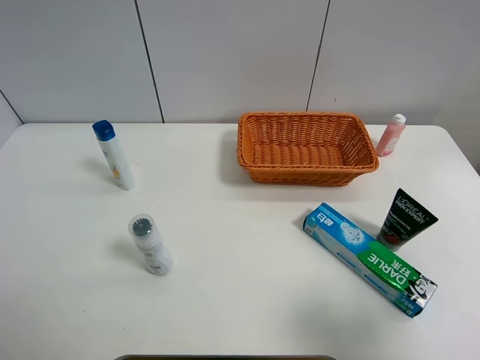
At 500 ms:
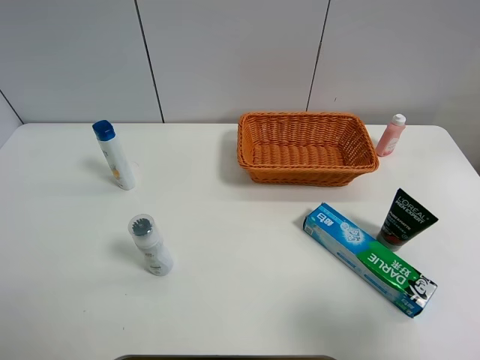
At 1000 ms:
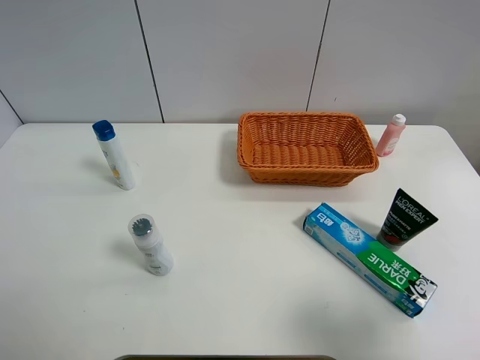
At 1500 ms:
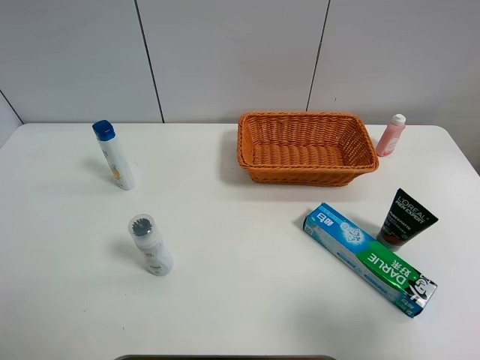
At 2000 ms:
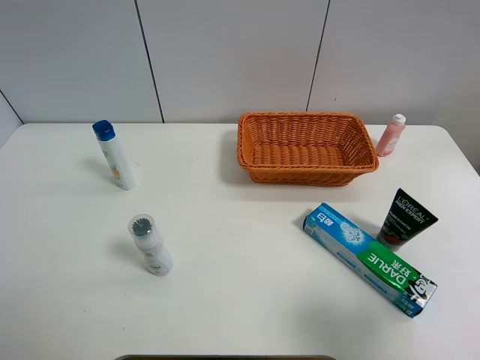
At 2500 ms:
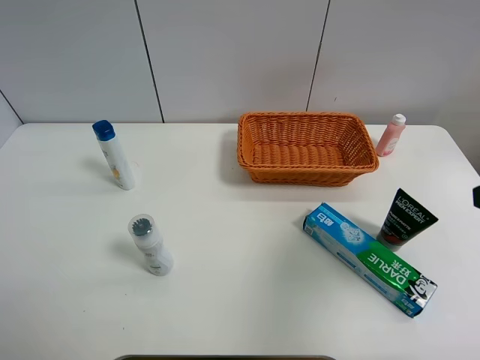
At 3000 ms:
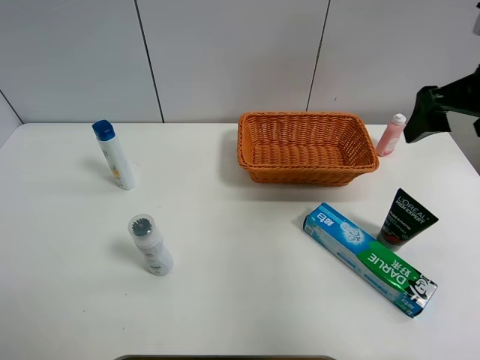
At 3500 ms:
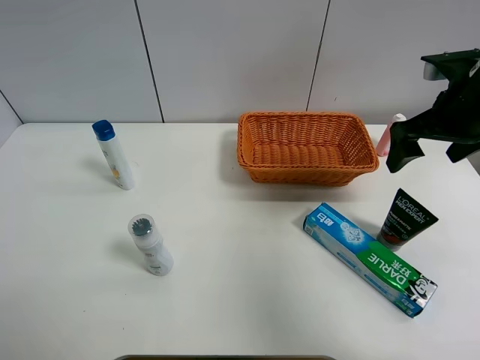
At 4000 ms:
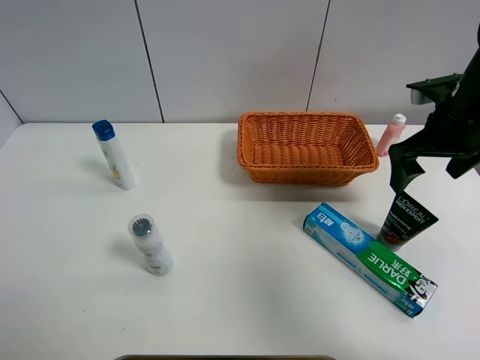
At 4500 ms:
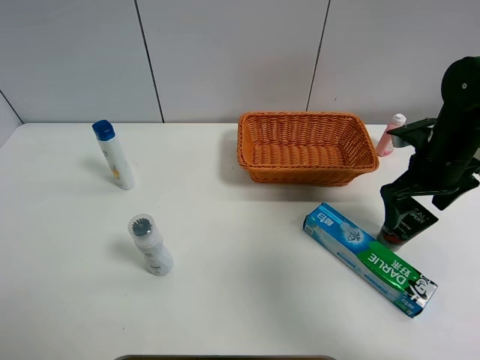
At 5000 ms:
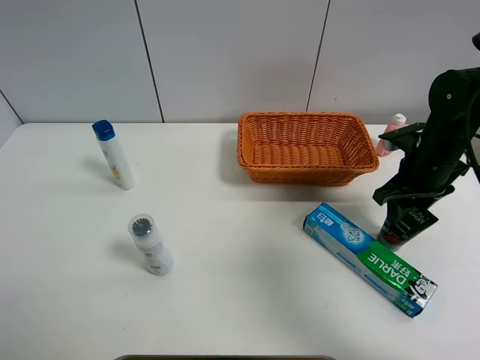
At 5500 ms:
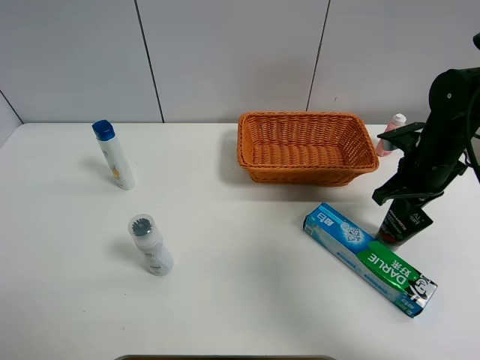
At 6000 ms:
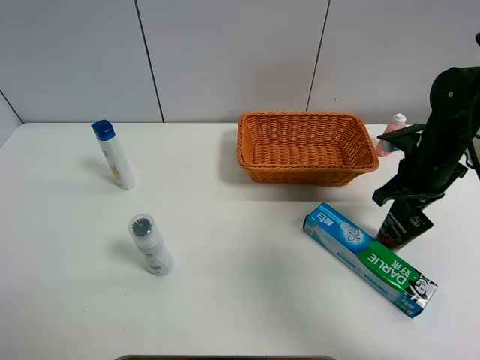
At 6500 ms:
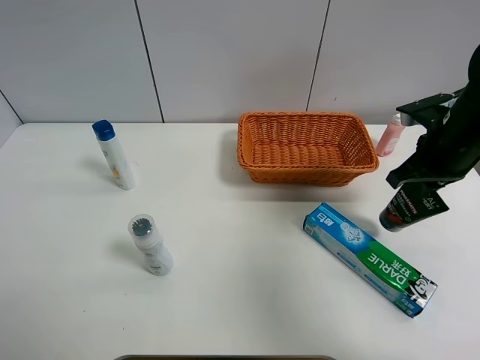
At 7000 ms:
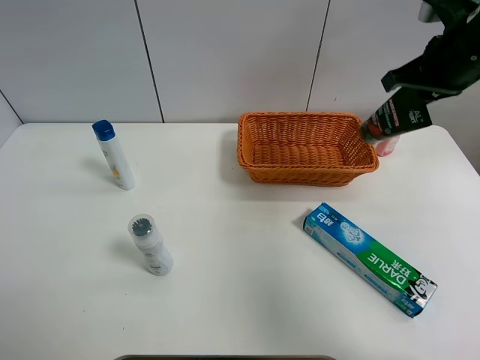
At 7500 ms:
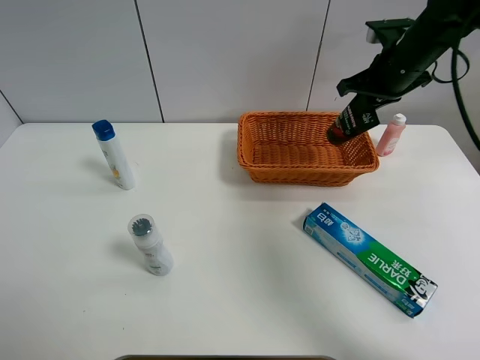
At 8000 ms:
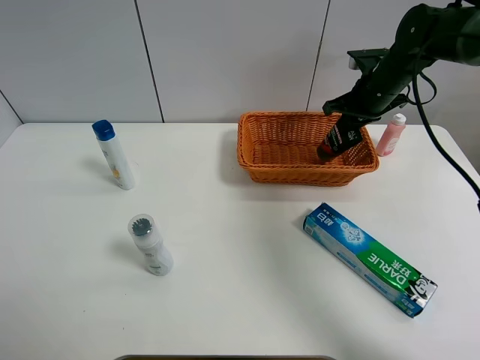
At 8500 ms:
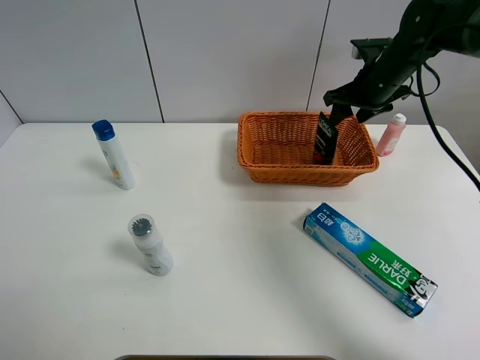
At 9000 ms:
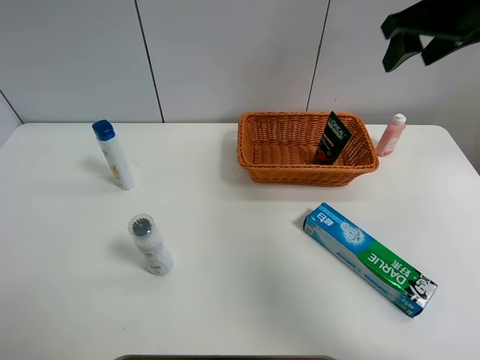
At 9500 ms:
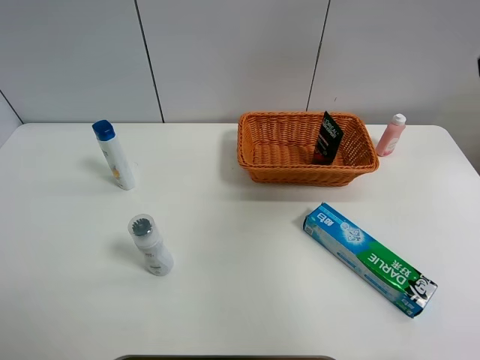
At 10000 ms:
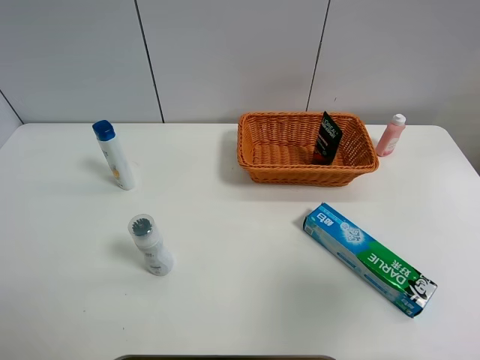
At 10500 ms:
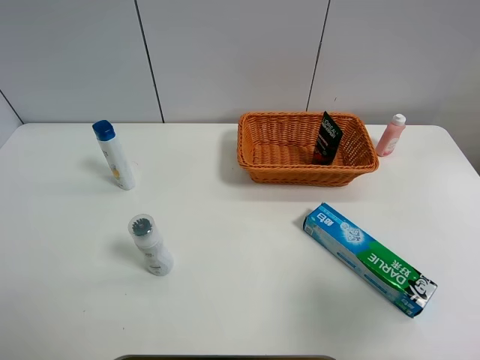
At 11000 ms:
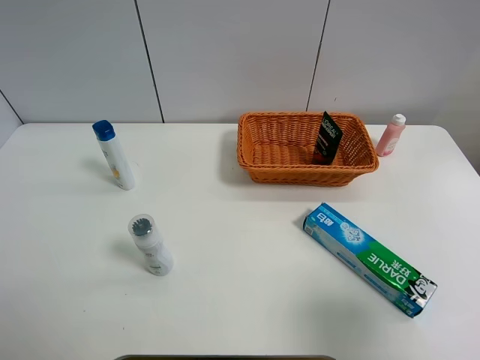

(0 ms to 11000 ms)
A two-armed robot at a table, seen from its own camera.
Task of the whole recording: Place the object closest to the toothpaste in the basket.
Step, 0 ms - 5000 ms: Grasp the soft facial cleanser with right gripper.
Step, 5500 ms - 8500 ms: Place the soft facial cleanser in the basket with right gripper.
0 ms - 2000 ms: Both grippers stay about where they are.
2000 ms - 3500 ms: The right gripper shifts about 30 cm forward.
3500 ms - 5500 ms: The right gripper goes approximately 10 cm downward, and closes.
5500 ms - 7500 ms: The right gripper shifts roughly 15 cm forward and upward.
7500 ms - 9000 ms: The right gripper shifts roughly 15 cm upward and backward, and opens its fingers.
9000 ms - 11000 ms: The right gripper heads backward, covering some 35 cm.
